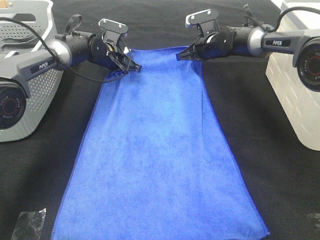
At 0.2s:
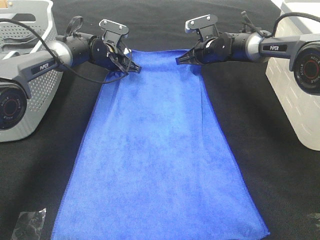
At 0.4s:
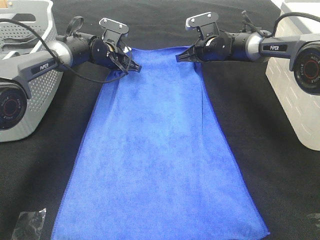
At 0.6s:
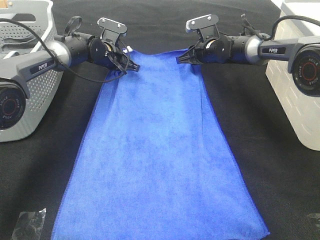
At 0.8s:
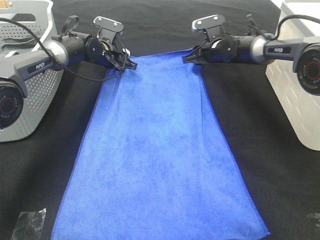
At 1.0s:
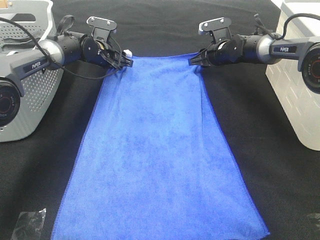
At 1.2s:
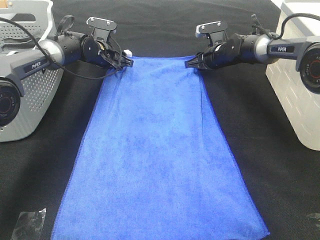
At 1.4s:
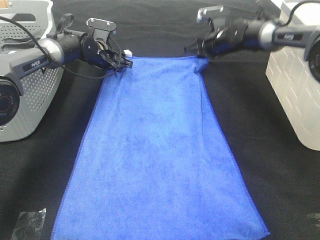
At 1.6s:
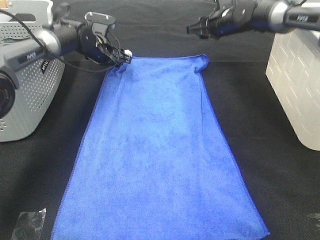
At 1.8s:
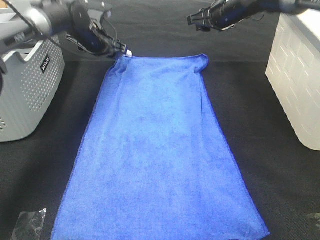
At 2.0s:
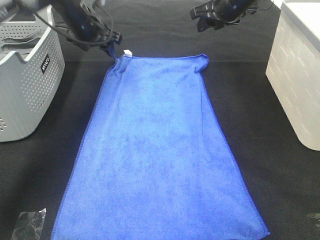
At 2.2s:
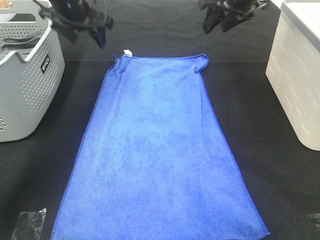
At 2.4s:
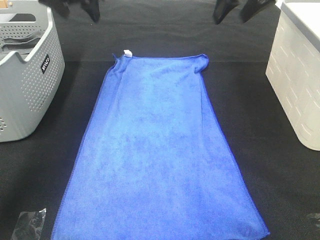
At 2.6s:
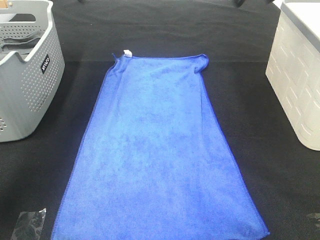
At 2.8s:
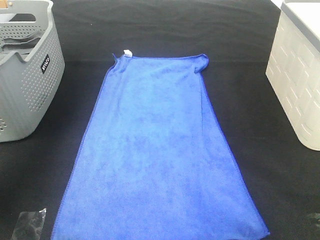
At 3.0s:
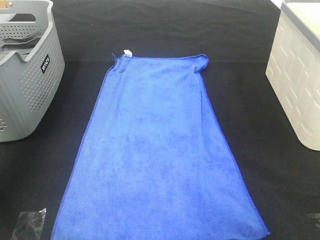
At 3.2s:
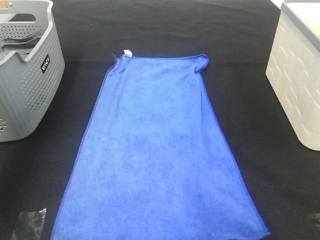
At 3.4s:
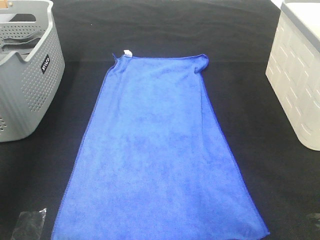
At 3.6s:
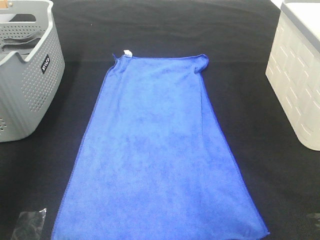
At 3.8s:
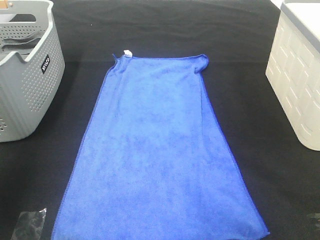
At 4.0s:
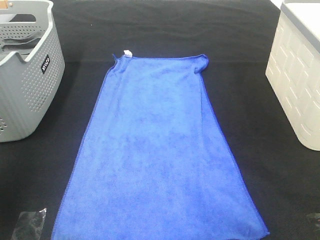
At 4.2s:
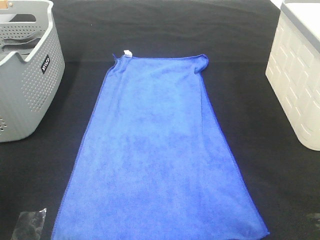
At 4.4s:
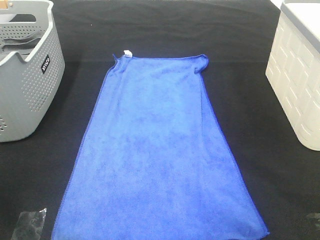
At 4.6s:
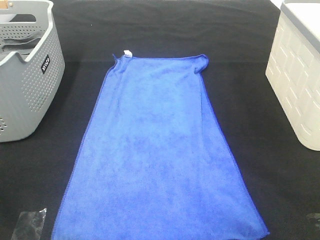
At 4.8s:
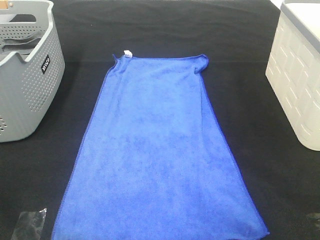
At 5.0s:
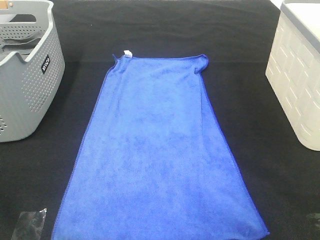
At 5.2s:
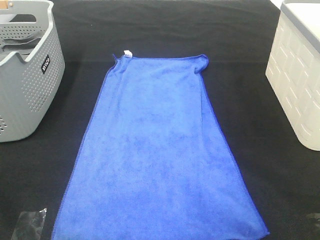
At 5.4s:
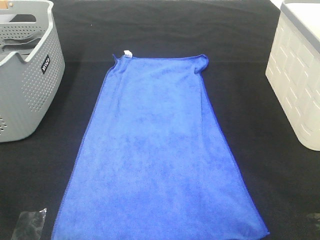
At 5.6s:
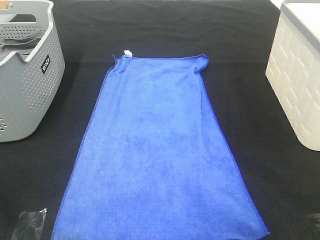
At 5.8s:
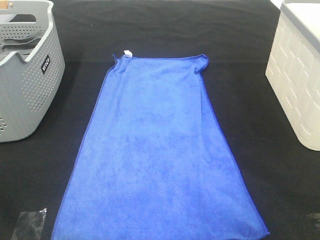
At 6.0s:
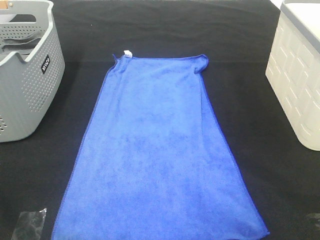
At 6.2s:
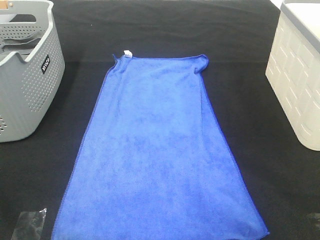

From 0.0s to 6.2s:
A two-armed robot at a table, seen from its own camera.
Task of the whole recording: Remove the towel and place it.
From 0.0s to 1.6s: The right gripper moves upward, about 5 cm, and opens; the left gripper opens its fingers.
From 1.6s to 3.2s: The right gripper goes approximately 40 cm upward and backward. Meanwhile the left gripper shifts roughly 40 cm upward, backward and to the left.
From 3.2s to 4.6s: The right gripper is displaced backward and downward by roughly 35 cm; the left gripper heads backward, covering approximately 35 cm.

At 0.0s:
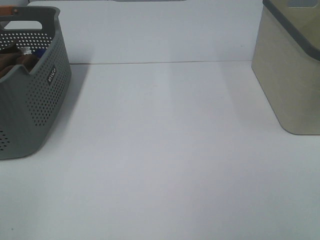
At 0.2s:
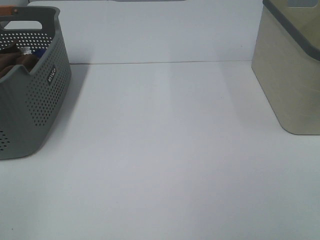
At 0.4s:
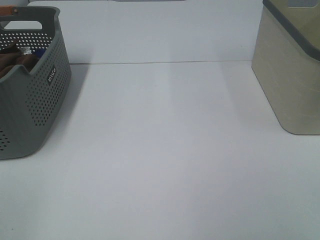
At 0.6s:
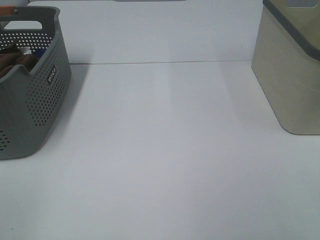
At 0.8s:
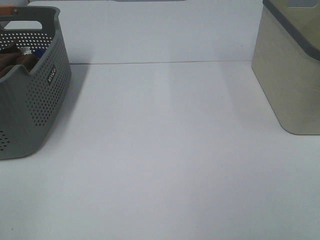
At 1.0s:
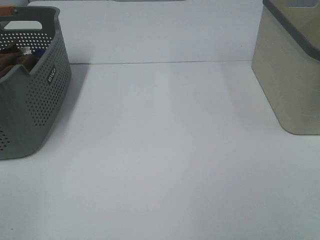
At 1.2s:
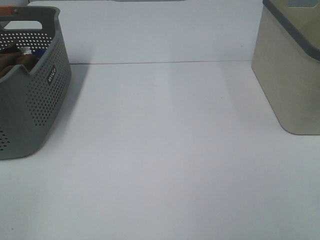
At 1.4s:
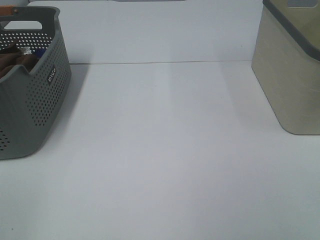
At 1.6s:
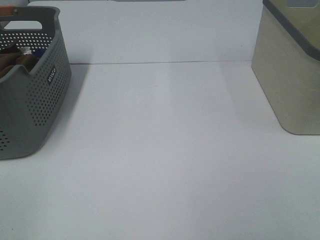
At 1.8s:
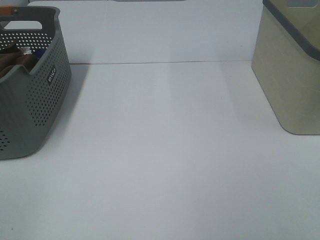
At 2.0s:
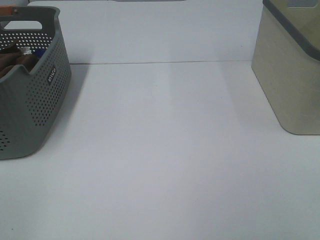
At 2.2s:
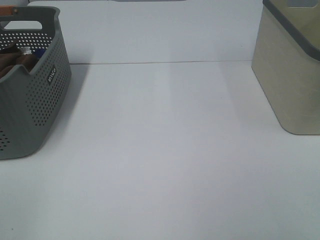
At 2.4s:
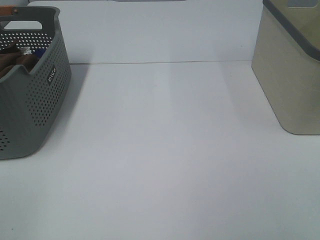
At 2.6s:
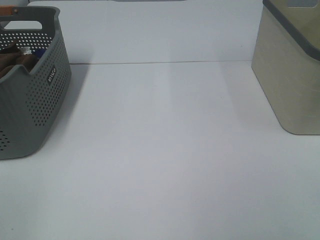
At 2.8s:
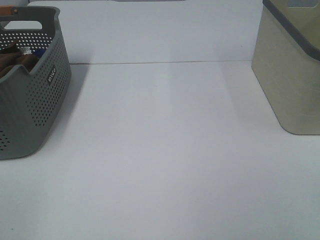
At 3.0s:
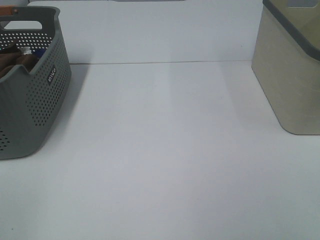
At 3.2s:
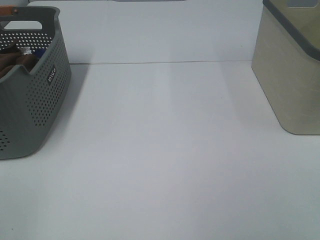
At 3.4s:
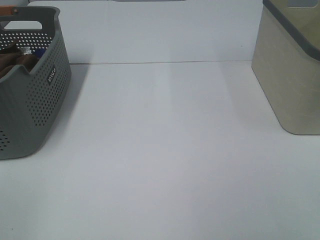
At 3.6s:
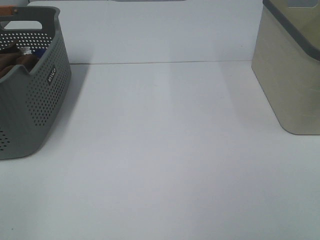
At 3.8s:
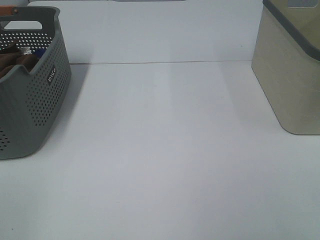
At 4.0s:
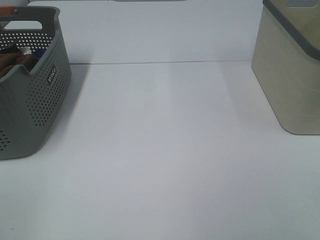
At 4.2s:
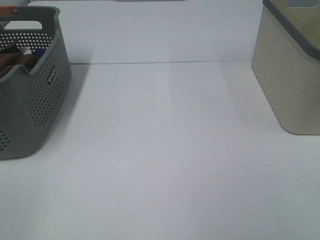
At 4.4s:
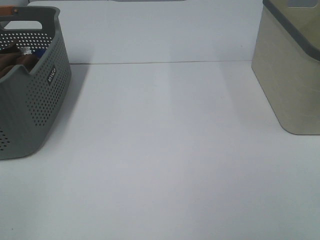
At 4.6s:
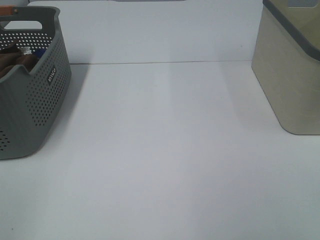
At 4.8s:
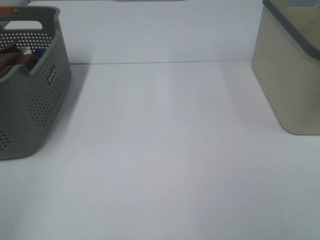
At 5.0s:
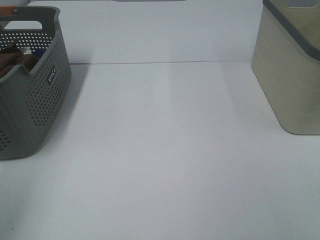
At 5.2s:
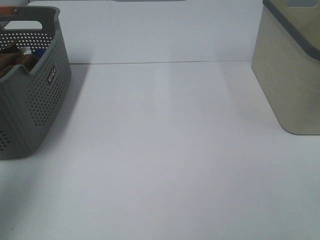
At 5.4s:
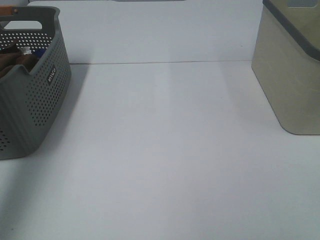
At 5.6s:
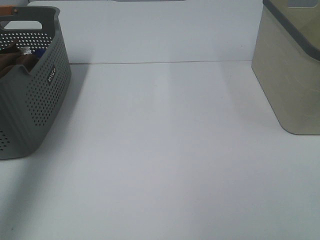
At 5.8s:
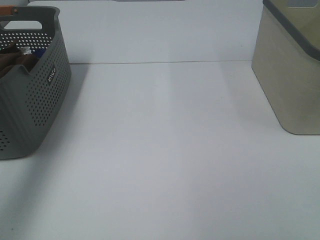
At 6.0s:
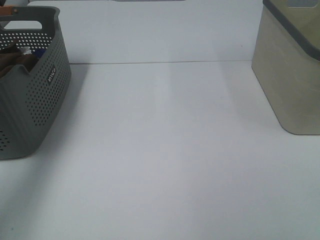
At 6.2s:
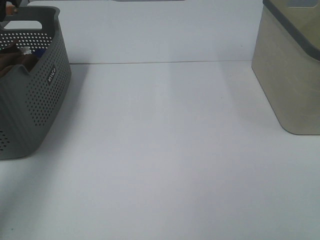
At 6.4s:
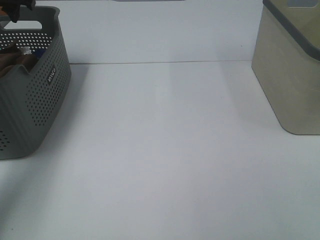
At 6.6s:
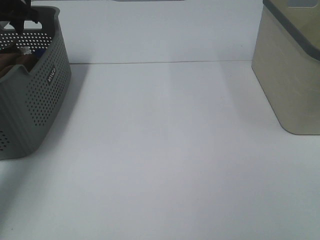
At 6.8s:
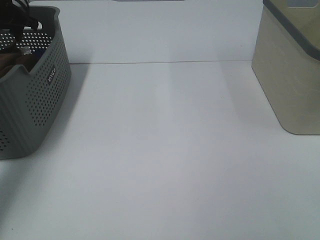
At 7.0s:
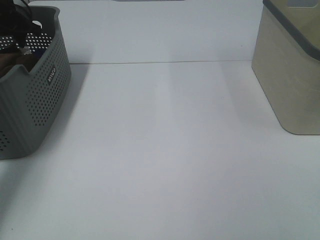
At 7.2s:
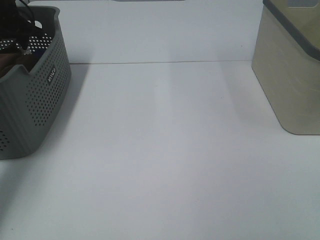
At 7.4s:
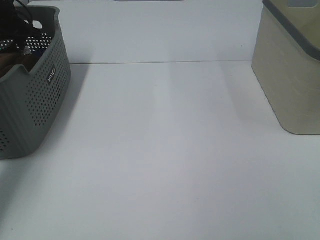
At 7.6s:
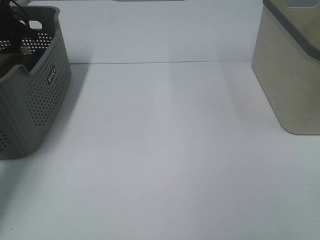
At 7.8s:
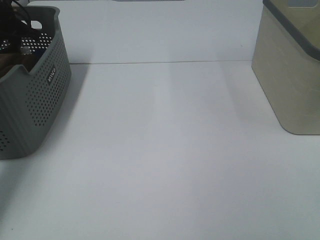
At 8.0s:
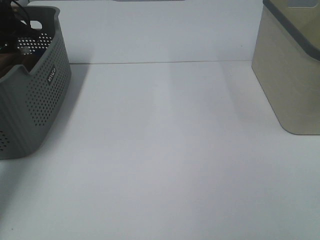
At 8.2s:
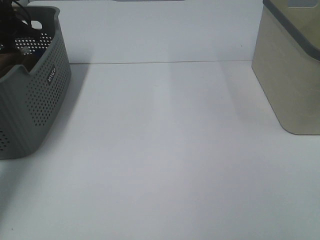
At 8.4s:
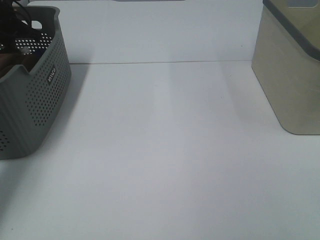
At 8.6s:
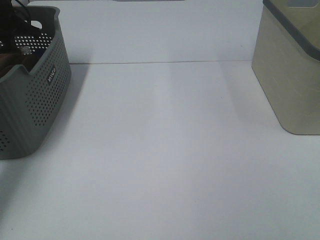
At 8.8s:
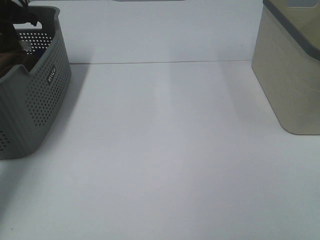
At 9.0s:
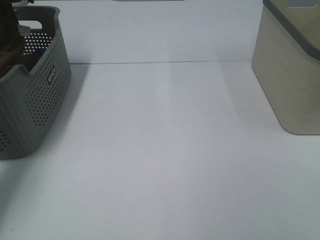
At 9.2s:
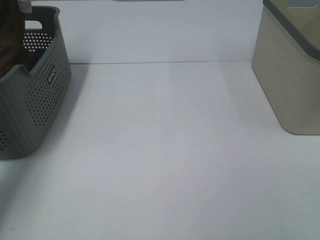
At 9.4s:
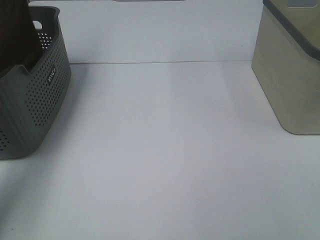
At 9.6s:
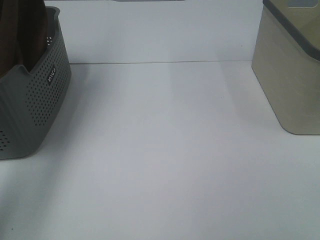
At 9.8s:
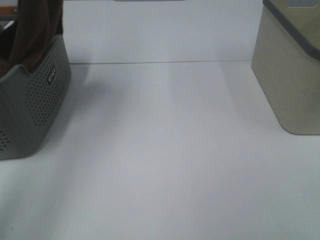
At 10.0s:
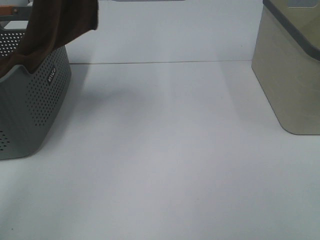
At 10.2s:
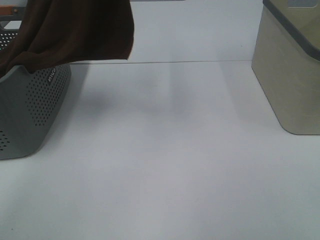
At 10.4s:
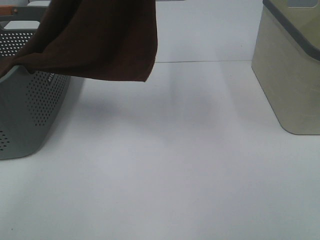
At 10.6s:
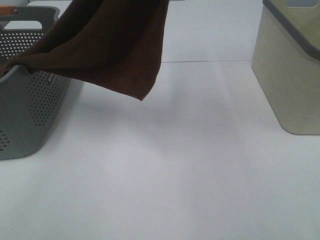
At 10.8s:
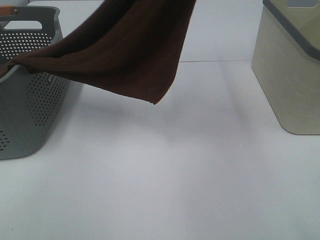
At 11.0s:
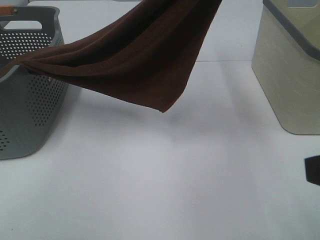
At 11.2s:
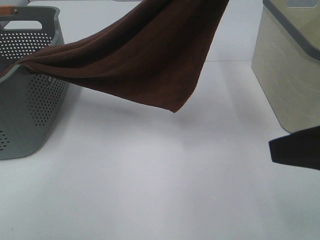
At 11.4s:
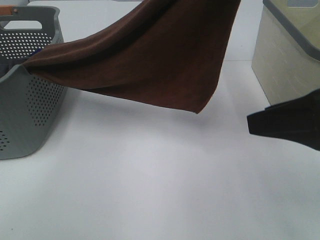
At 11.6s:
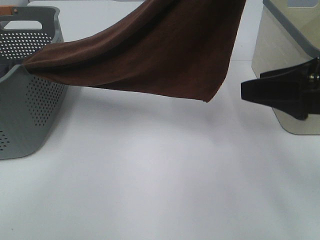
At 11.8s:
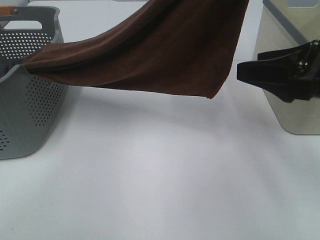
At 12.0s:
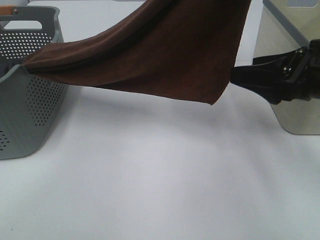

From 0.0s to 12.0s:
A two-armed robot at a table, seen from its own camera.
Task of the whole recording: Remove the towel and place it.
From 0.0s to 4.4s: Neither gripper changes place.
From 4.4s to 6.0s: The left gripper heads forward, covering roughly 40 cm.
From 6.0s to 7.6s: The left gripper goes some 20 cm forward and downward.
From 9.0s to 10.4s: The left gripper moves to the right, upward and backward, some 40 cm.
From 10.4s to 12.0s: The left gripper is displaced to the right and downward by about 10 cm, while the right gripper is displaced forward by approximately 25 cm.

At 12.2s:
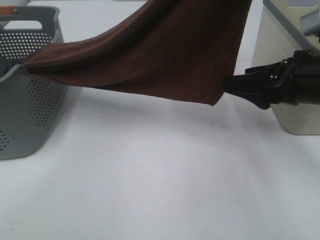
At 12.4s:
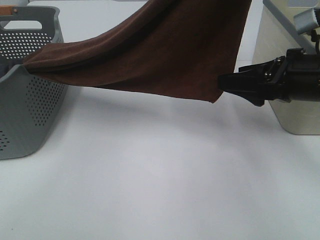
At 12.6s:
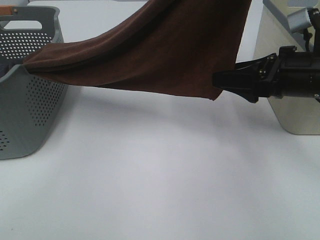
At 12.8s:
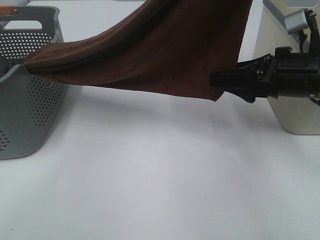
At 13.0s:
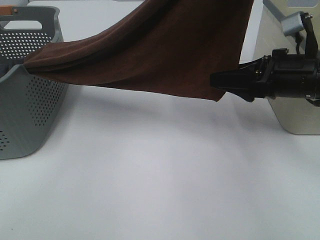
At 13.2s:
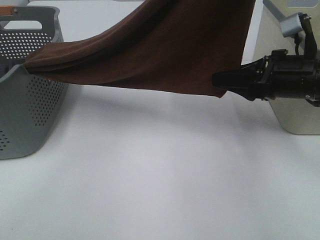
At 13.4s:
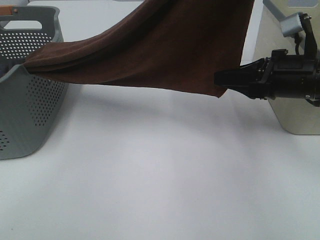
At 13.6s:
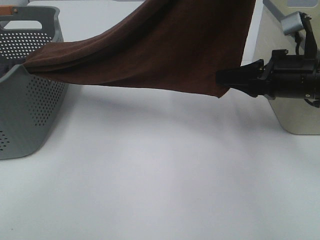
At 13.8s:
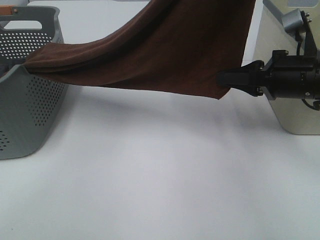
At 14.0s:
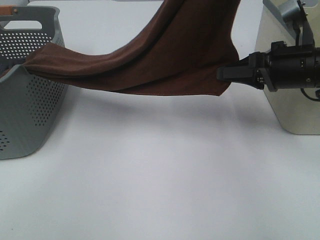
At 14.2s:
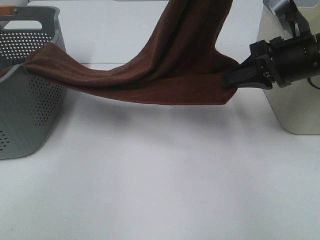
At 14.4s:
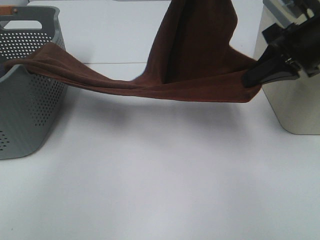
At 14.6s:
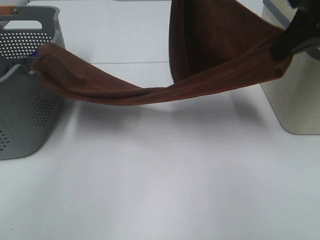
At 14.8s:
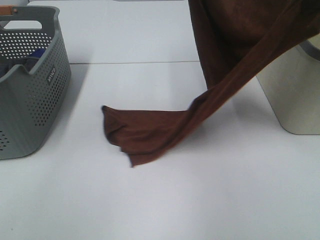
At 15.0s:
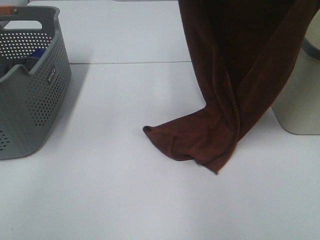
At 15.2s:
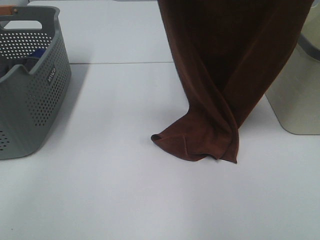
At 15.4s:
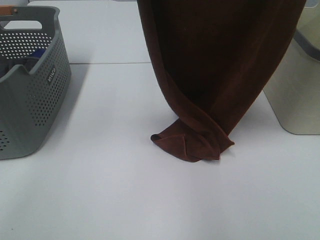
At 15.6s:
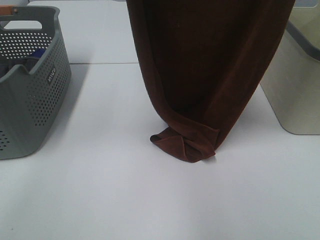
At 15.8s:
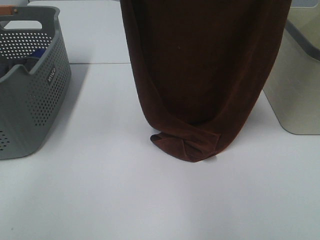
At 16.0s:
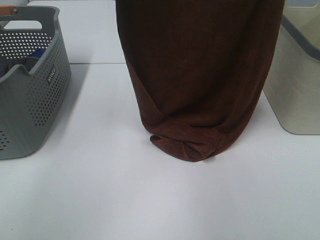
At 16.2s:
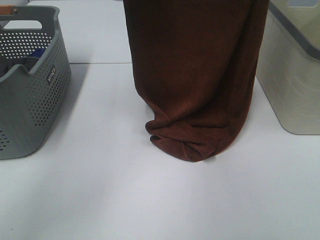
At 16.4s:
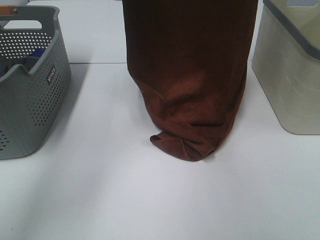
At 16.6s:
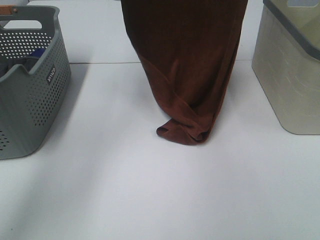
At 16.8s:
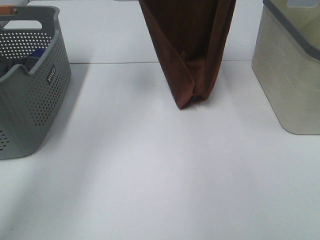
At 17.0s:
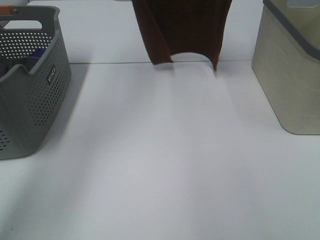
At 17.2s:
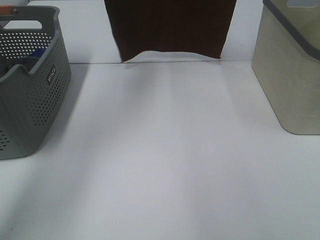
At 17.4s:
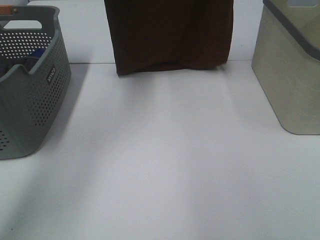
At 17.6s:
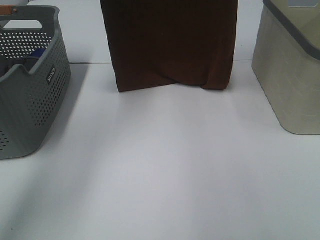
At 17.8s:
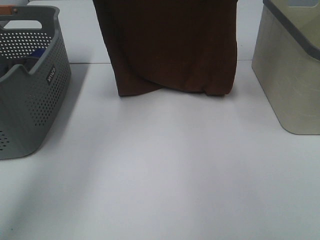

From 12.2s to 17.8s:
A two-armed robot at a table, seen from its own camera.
Task of the whole recording: Remove the towel and place it.
Step, from 13.4s to 17.0s: Left hand: spread the brown towel flat on the table.
Step, from 13.4s to 17.0s: Right hand: spread the brown towel flat on the table.
From 12.2s to 13.6s: The right gripper closes.
From 13.6s to 15.0s: The right gripper goes about 25 cm upward. The left gripper moves to the left and forward, about 10 cm.
From 15.0s to 16.4s: The left gripper is displaced forward, downward and to the left by roughly 15 cm. The right gripper shifts some 20 cm forward and downward.
From 16.4s to 17.8s: The right gripper moves roughly 15 cm upward and comes back. Meanwhile the left gripper goes upward and returns, approximately 15 cm each way.
